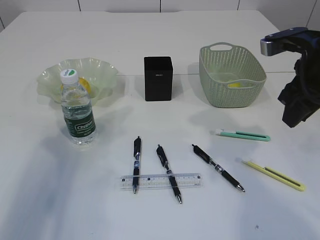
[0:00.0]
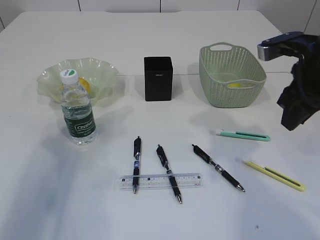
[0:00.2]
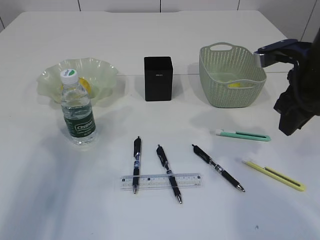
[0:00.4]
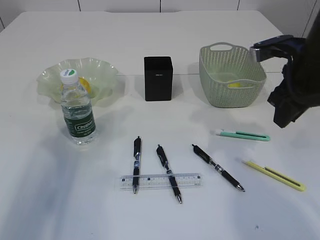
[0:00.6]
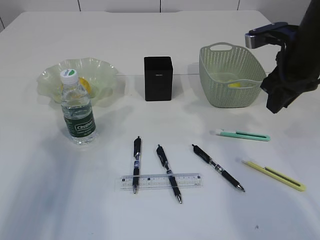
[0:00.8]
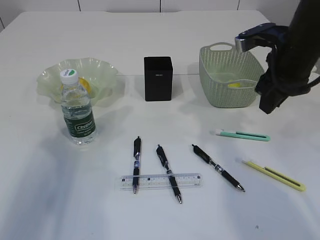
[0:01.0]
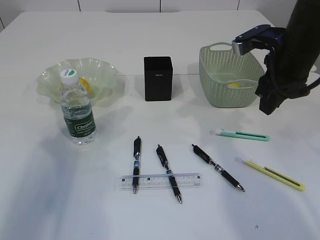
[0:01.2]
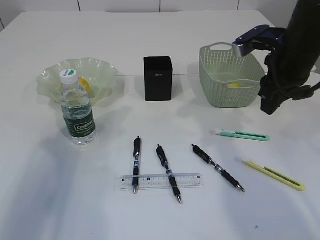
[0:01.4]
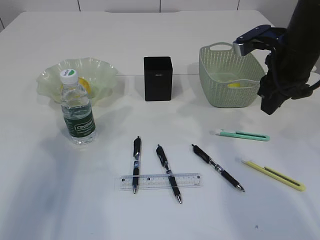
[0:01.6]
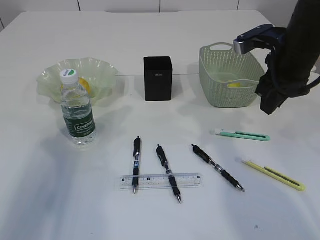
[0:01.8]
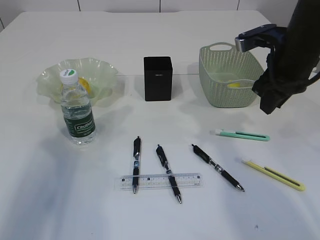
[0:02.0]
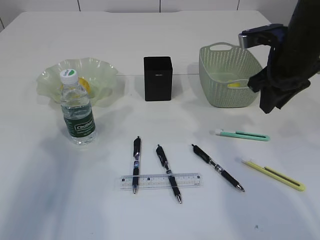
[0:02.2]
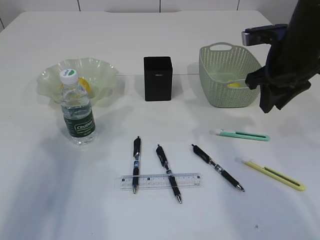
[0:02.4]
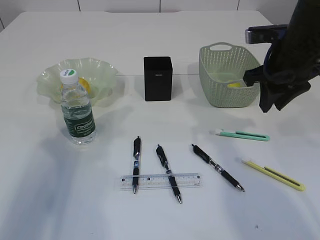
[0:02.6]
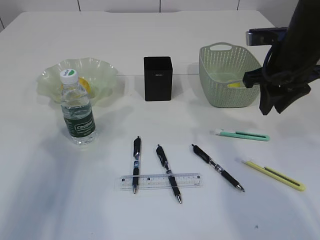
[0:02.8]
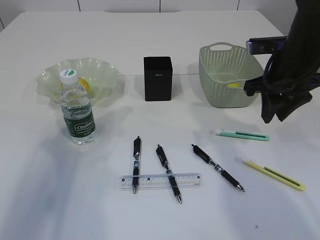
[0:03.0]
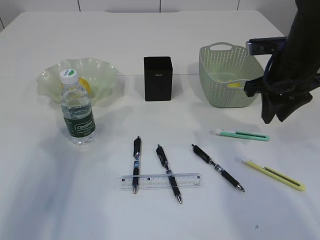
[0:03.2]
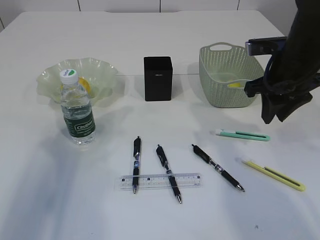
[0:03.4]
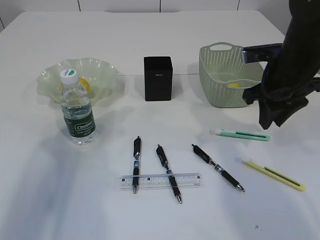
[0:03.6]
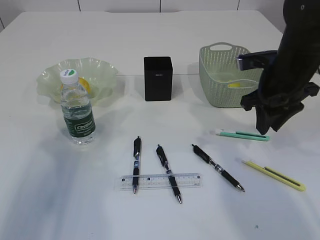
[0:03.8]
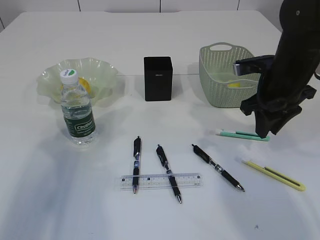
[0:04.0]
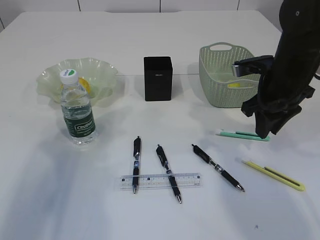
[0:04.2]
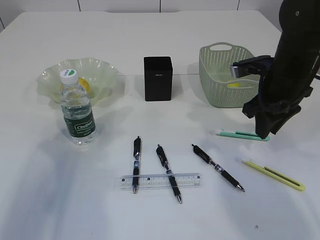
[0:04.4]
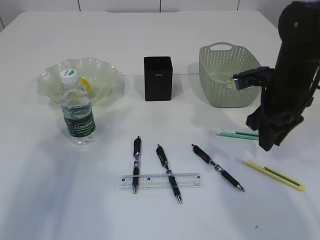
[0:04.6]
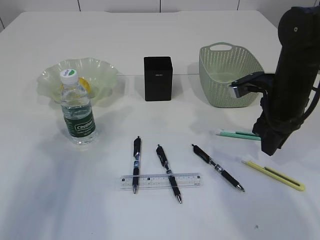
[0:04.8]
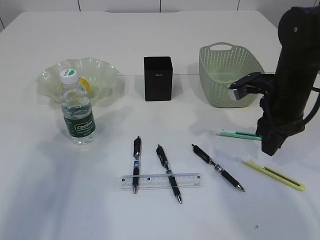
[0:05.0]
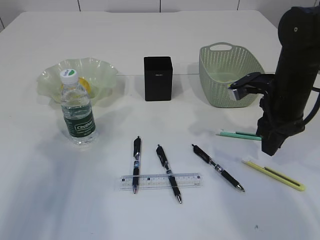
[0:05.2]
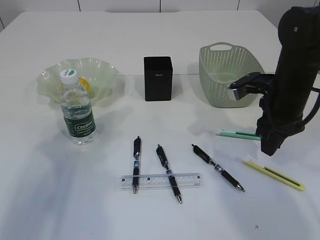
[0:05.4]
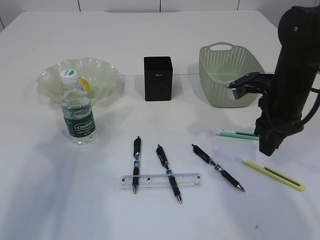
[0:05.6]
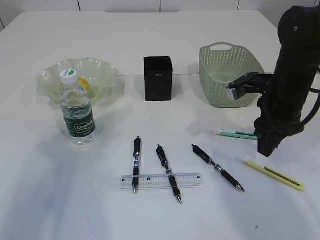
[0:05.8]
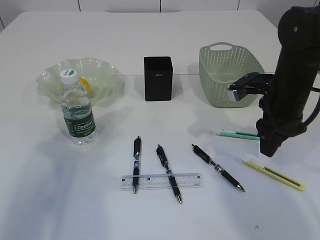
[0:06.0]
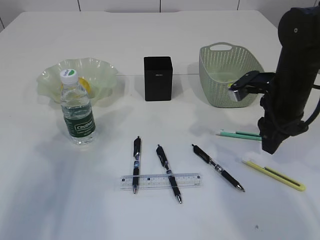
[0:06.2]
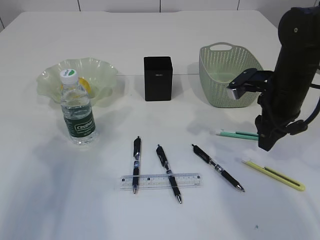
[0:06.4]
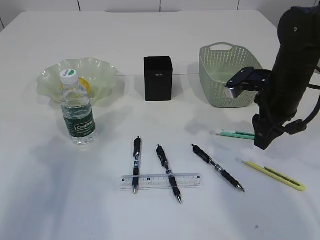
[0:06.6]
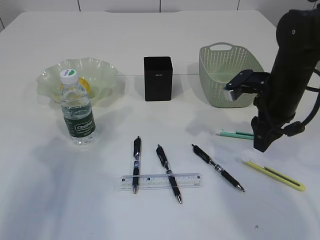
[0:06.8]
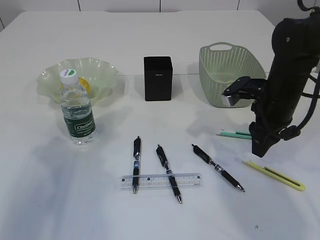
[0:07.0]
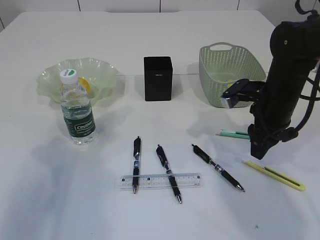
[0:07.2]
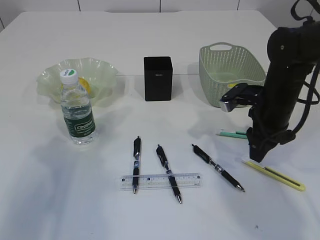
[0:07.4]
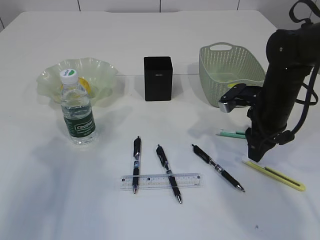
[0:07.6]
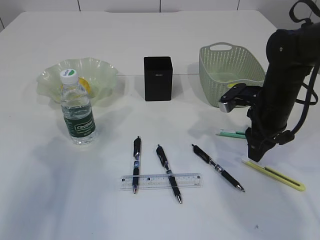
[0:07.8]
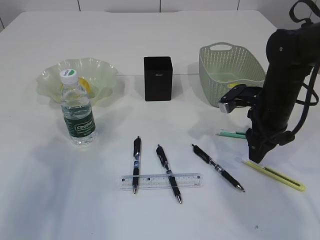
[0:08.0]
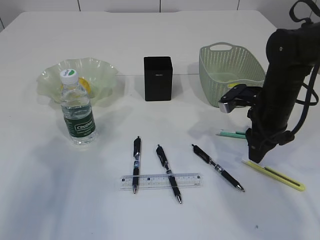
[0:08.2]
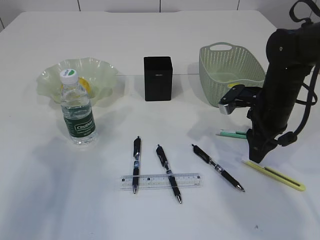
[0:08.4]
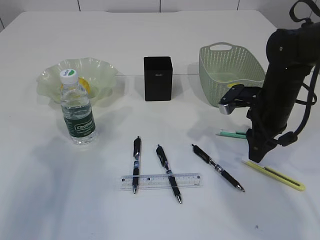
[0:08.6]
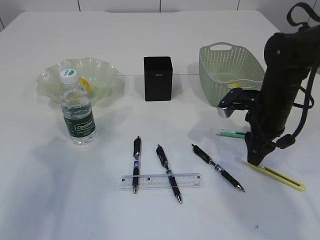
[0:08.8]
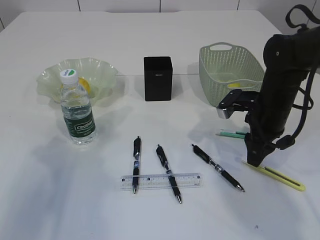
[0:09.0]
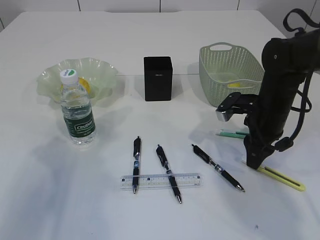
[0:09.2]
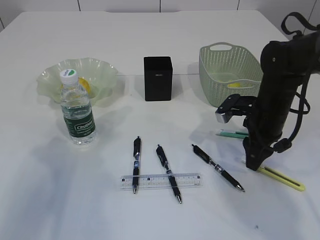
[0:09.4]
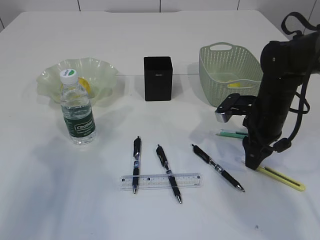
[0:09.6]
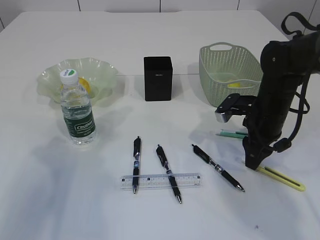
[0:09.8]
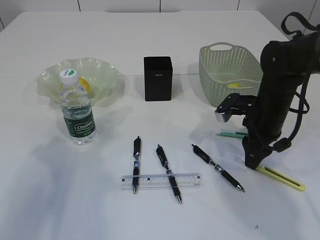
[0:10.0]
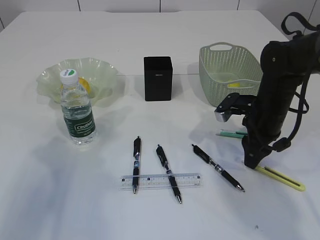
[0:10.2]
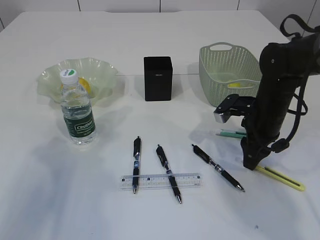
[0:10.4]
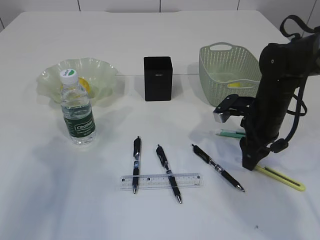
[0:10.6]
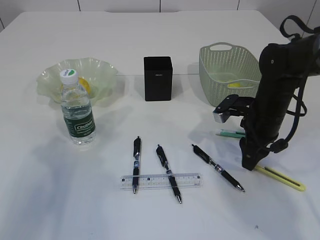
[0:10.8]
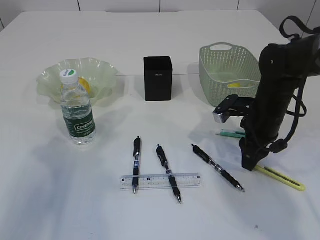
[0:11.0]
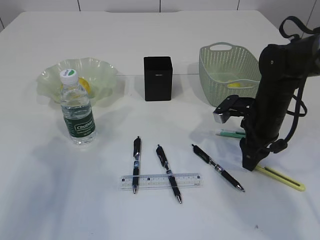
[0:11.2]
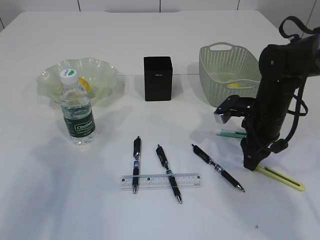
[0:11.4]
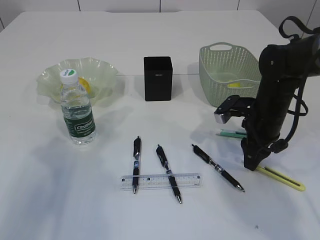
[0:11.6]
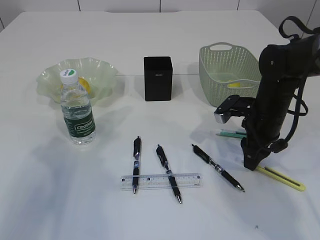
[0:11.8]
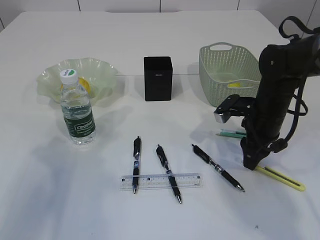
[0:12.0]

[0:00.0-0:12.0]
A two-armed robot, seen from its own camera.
0:00.0 to 0:01.6: The right gripper goes about 5 cm forward.
0:03.0 to 0:04.4: There are only small adjustments of the grippers.
0:06.0 to 0:09.0: The grippers move only a little.
0:09.0 to 0:10.4: The grippers move only a little.
0:10.4 to 0:12.0: Both grippers stay about where they are.

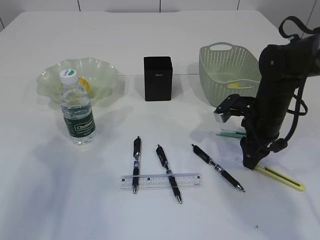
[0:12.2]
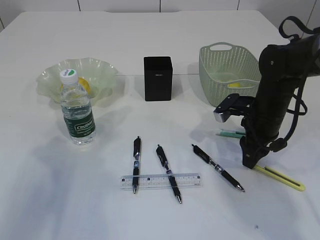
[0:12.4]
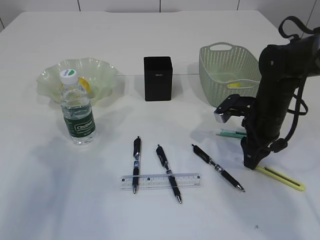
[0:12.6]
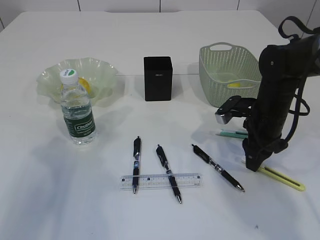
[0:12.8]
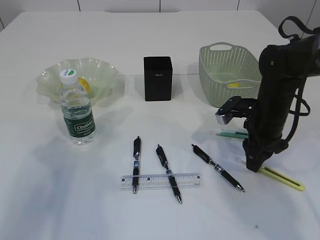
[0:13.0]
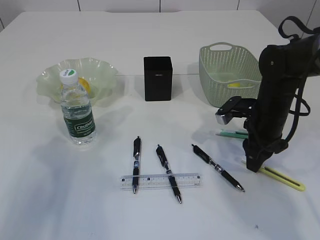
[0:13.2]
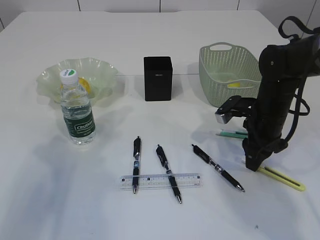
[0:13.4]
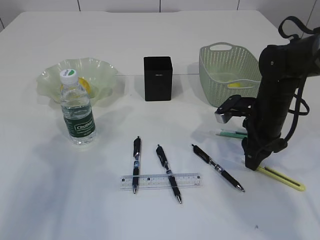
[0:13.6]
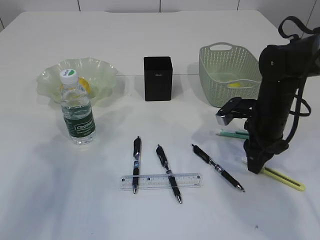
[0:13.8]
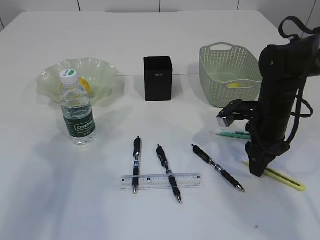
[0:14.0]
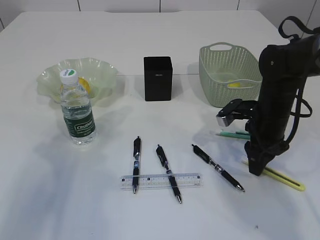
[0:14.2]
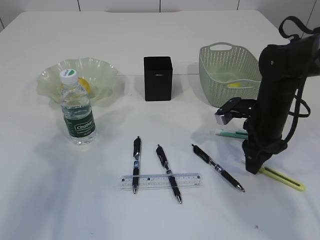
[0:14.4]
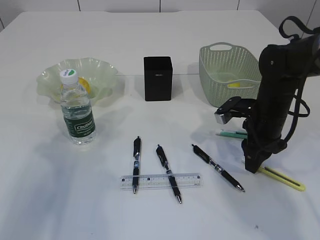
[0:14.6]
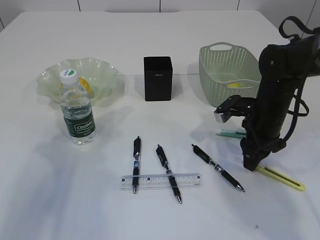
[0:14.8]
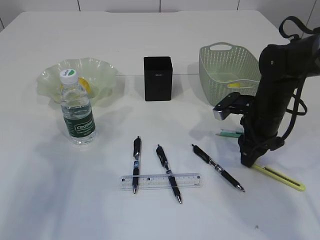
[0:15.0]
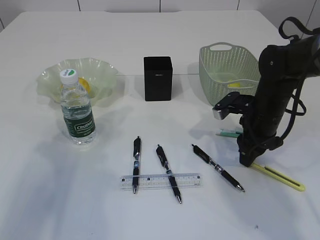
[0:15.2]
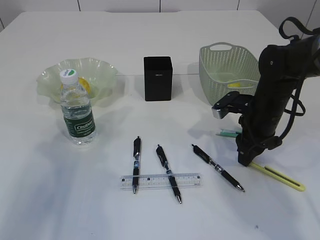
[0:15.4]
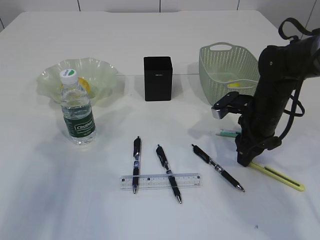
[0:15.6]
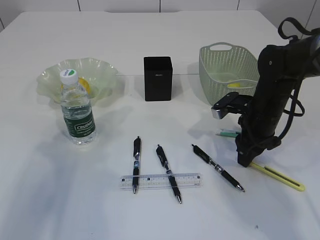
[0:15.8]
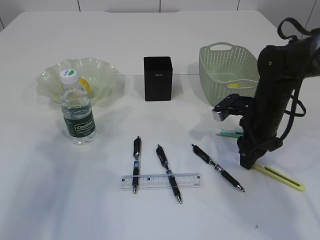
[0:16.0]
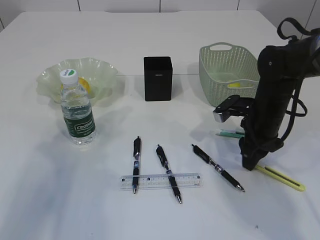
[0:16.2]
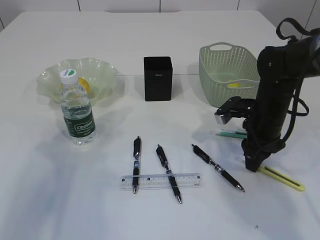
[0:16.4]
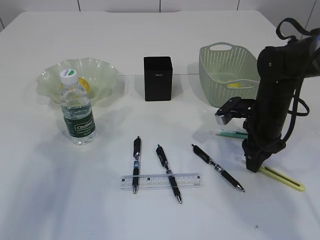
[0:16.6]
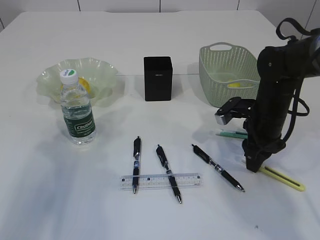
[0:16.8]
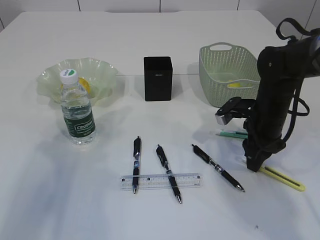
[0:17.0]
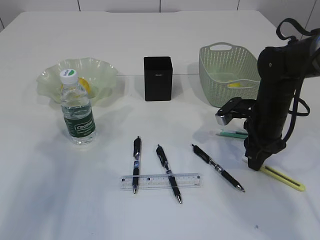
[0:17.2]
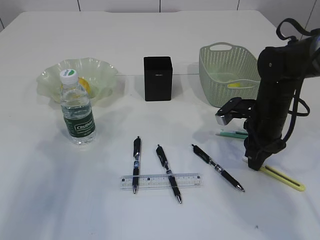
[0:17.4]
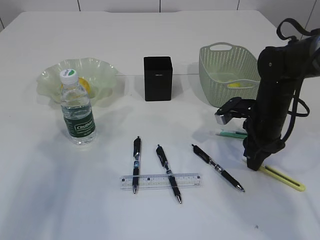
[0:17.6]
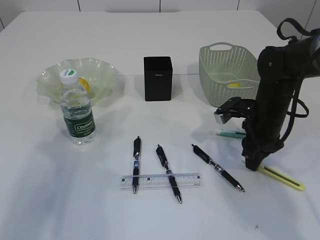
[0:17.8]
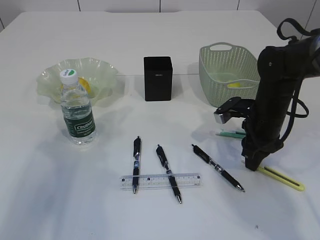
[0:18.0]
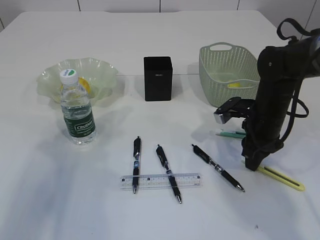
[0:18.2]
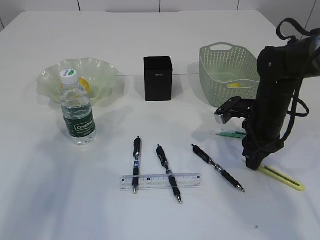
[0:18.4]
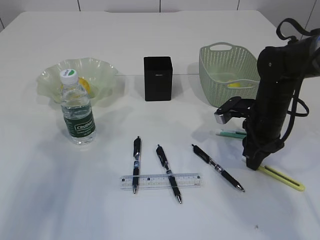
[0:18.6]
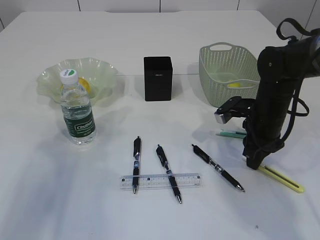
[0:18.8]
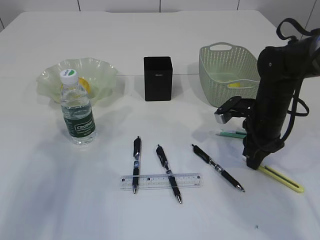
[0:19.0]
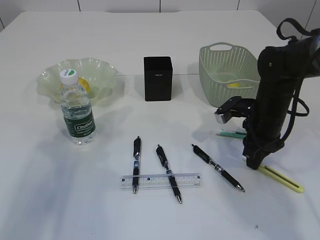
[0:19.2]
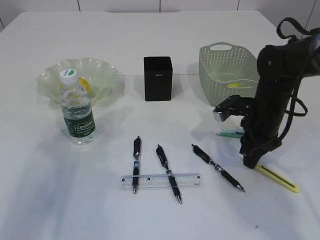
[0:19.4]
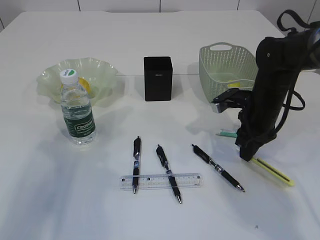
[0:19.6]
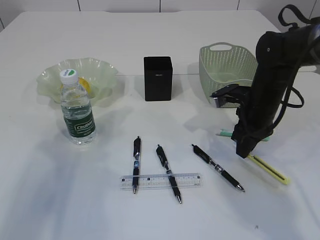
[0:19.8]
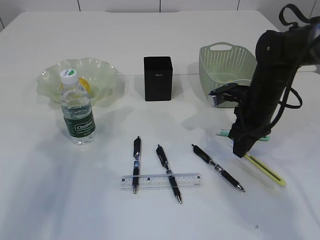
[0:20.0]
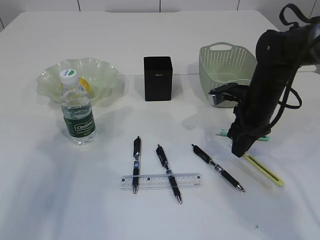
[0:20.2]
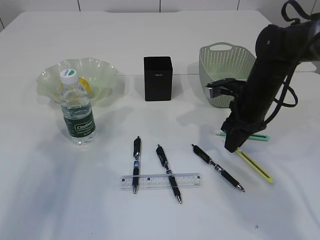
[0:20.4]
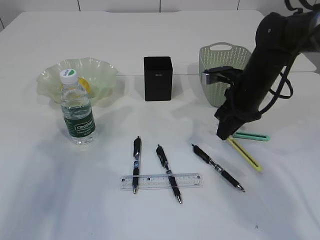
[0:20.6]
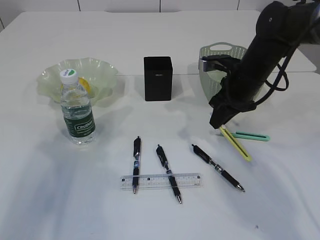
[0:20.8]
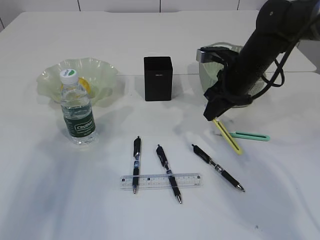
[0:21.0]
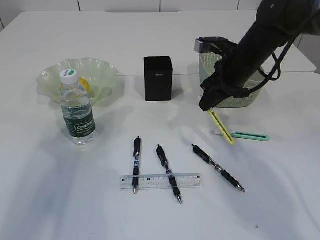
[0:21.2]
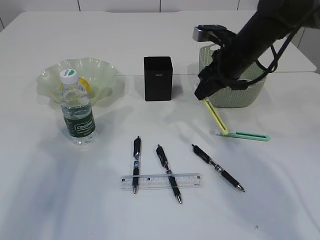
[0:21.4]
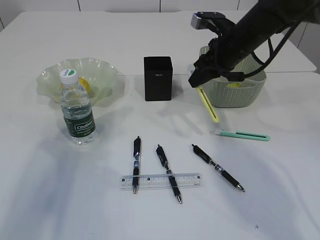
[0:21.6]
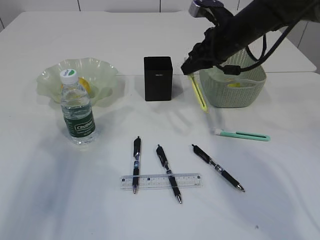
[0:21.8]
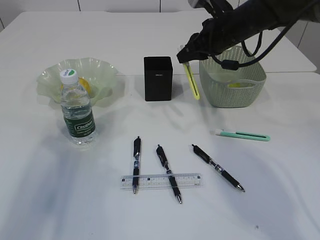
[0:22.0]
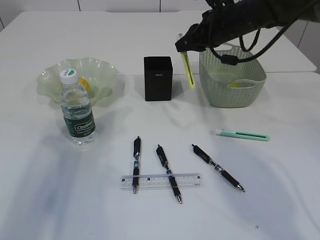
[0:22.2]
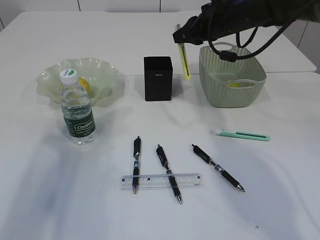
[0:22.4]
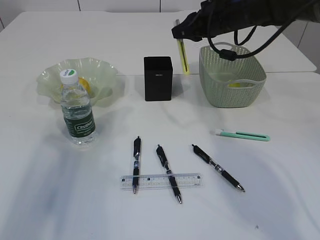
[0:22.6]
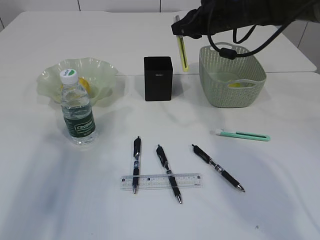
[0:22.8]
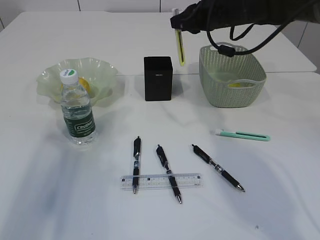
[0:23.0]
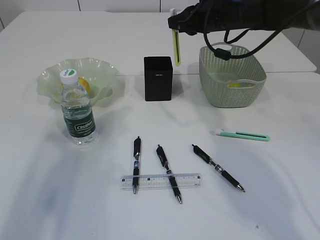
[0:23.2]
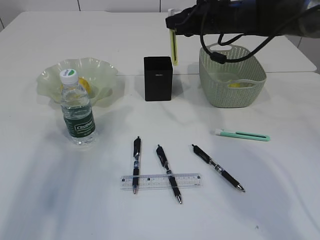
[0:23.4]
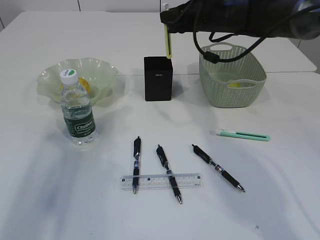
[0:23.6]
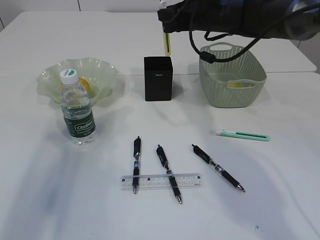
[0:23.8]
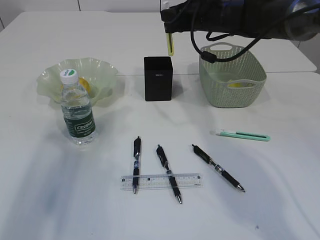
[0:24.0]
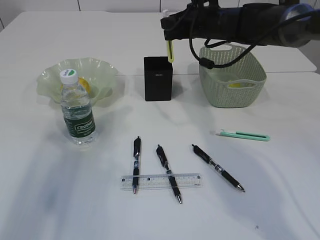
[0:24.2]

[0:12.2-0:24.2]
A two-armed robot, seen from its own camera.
Step, 0:12.2 to 0:21.6: pick up the yellow knife.
0:12.2 to 0:13.8: Neither gripper changes place.
0:13.8 to 0:16.6: There are only small adjustments of the grippers.
0:16.6 to 0:18.2: Both grippers stay about where they are.
0:18.2 to 0:19.8: The grippers stay close to where they were, moving slightly.
0:19.8 to 0:21.2: The right gripper moves upward, roughly 5 cm.
0:21.2 to 0:22.6: The right gripper is displaced upward by approximately 5 cm.
0:22.6 to 0:24.2: The grippers move only a little.
